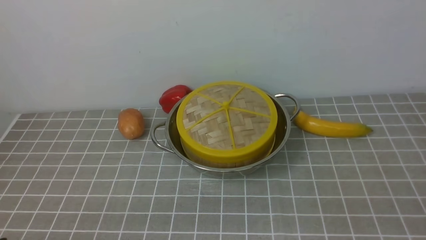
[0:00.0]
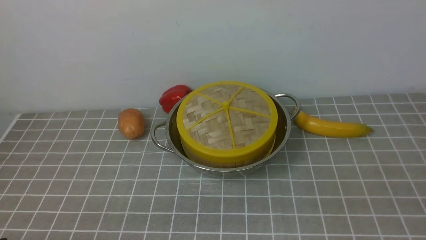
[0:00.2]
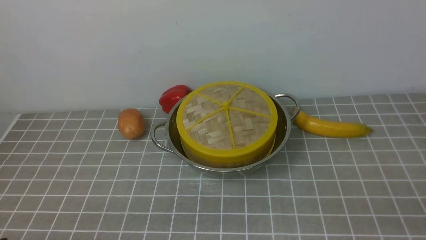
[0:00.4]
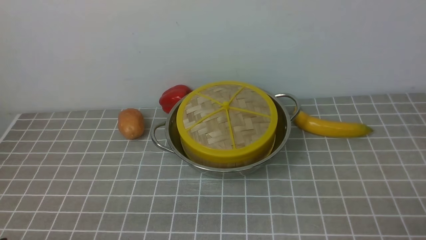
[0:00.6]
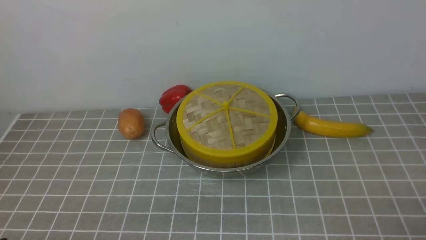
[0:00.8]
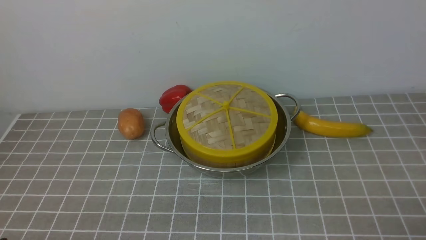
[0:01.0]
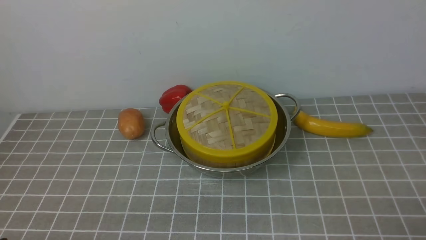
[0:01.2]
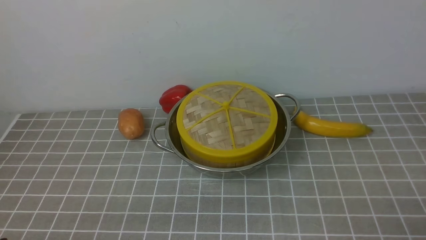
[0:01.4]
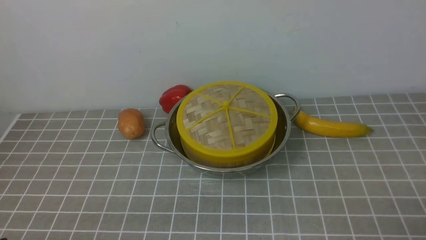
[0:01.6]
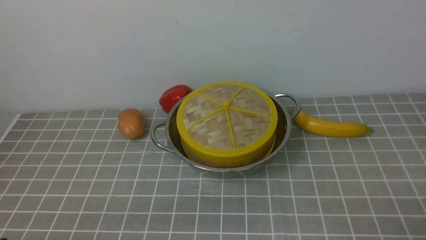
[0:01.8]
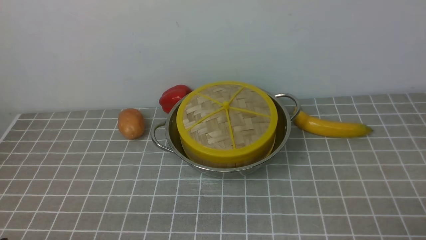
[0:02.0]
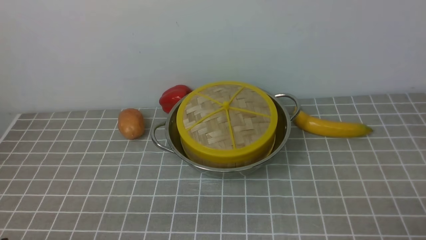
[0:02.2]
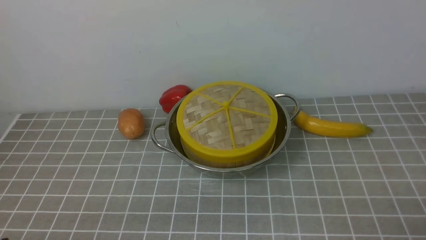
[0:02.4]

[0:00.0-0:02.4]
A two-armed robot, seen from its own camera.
Task of the whole recording: place the steamer in the pot on the grey tablecloth, and put the lid on the steamer.
0:01.2 to 0:02.4: Both grippers stay put.
